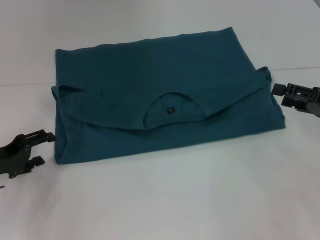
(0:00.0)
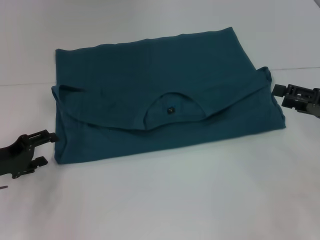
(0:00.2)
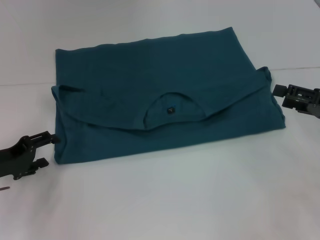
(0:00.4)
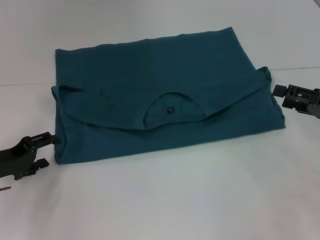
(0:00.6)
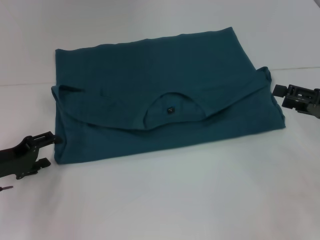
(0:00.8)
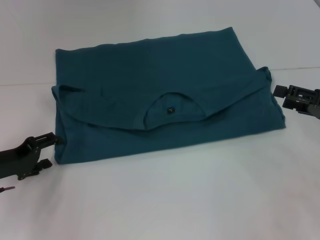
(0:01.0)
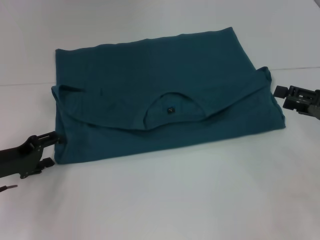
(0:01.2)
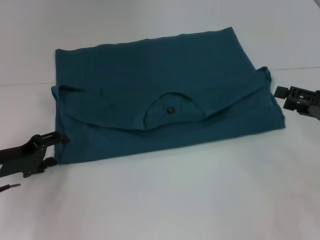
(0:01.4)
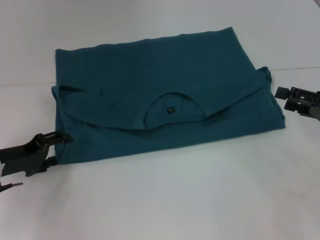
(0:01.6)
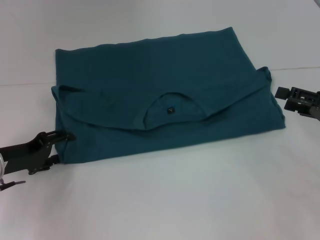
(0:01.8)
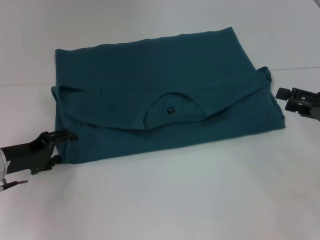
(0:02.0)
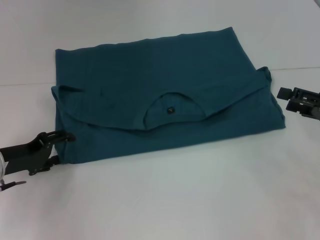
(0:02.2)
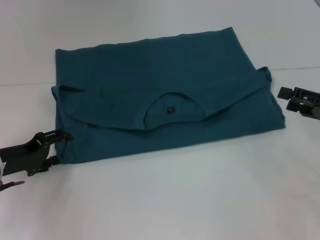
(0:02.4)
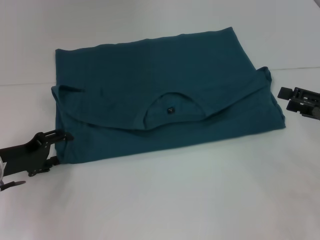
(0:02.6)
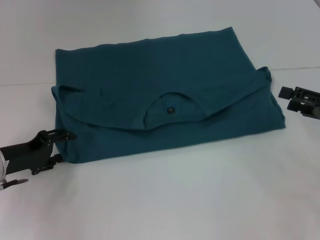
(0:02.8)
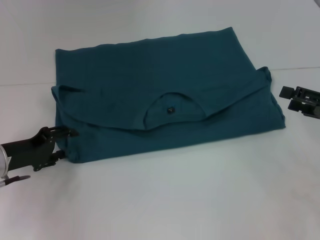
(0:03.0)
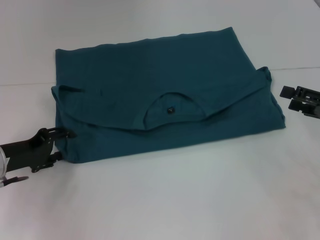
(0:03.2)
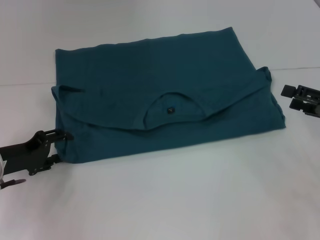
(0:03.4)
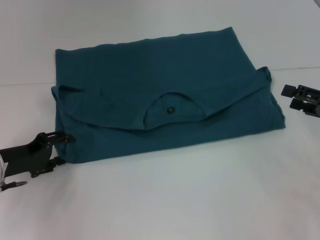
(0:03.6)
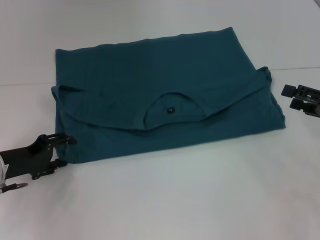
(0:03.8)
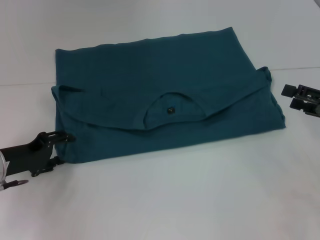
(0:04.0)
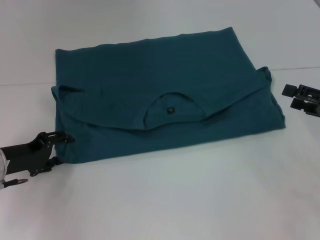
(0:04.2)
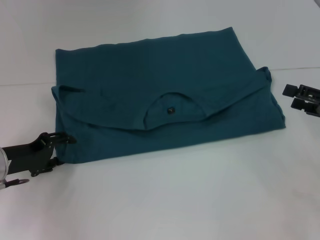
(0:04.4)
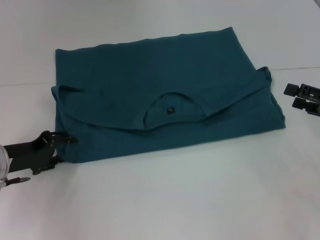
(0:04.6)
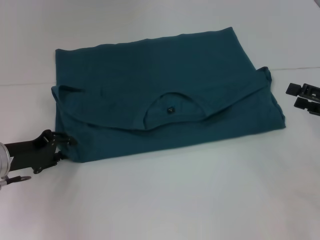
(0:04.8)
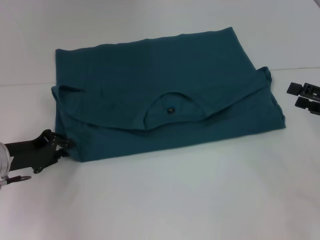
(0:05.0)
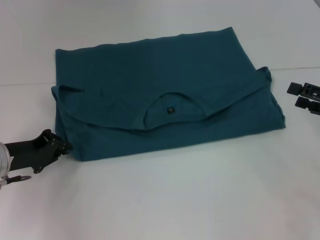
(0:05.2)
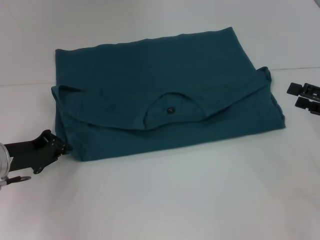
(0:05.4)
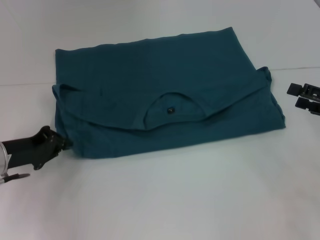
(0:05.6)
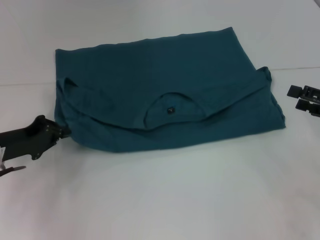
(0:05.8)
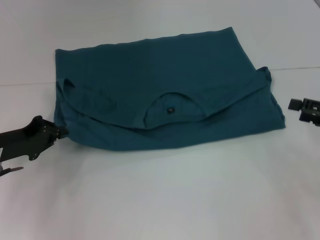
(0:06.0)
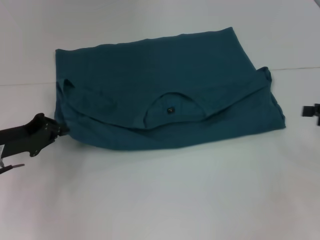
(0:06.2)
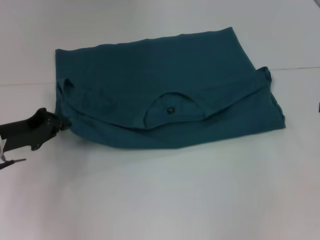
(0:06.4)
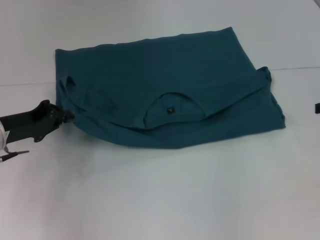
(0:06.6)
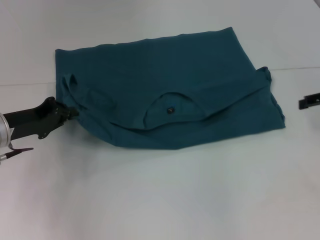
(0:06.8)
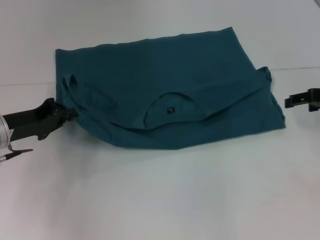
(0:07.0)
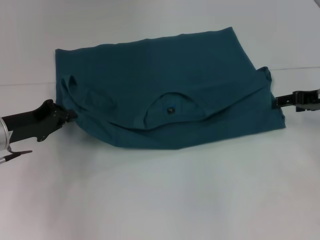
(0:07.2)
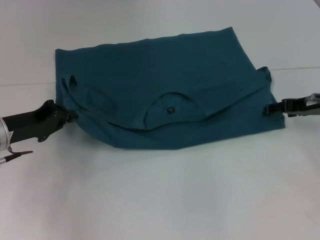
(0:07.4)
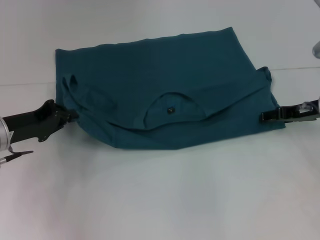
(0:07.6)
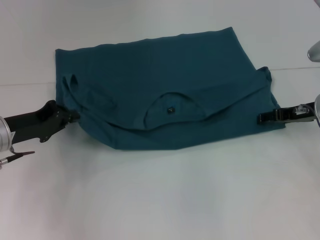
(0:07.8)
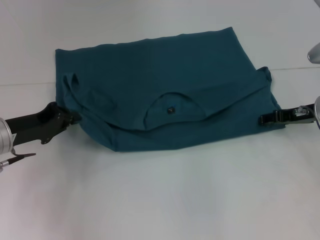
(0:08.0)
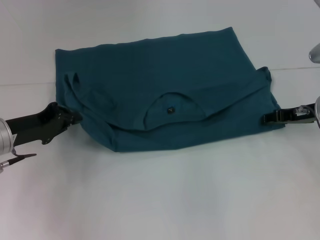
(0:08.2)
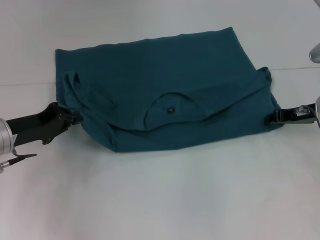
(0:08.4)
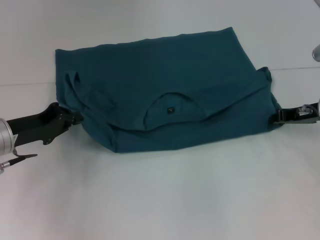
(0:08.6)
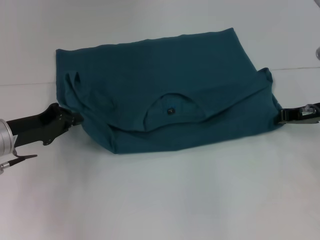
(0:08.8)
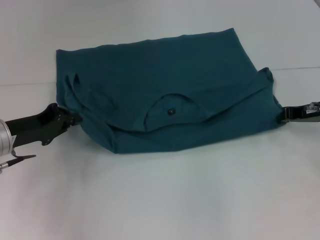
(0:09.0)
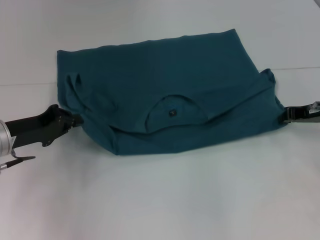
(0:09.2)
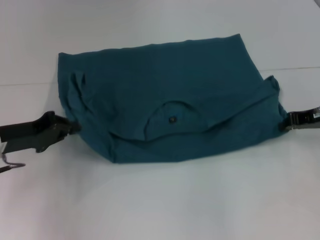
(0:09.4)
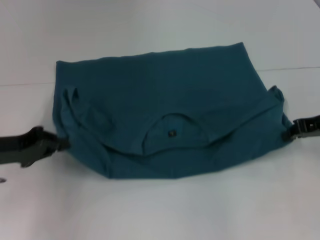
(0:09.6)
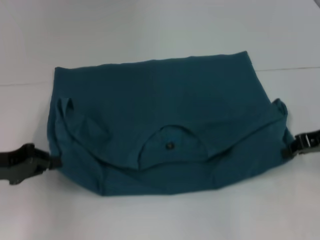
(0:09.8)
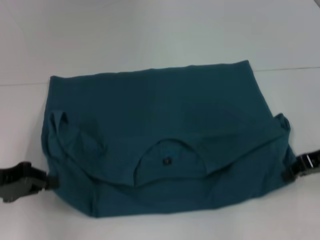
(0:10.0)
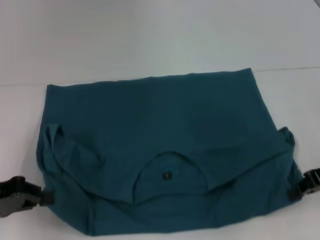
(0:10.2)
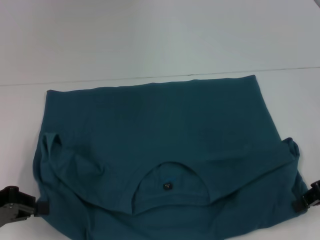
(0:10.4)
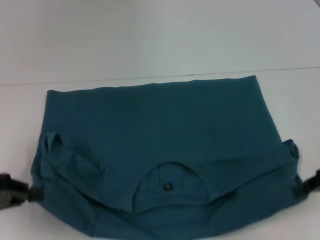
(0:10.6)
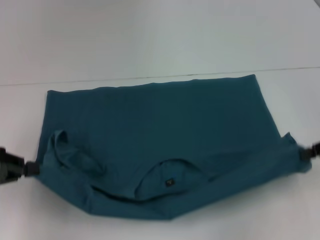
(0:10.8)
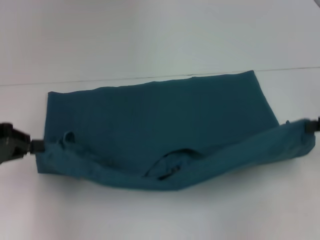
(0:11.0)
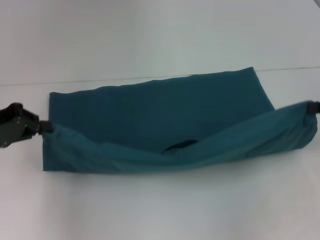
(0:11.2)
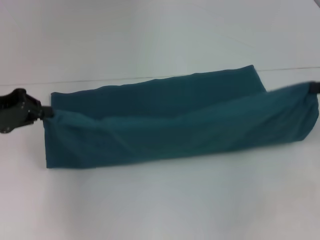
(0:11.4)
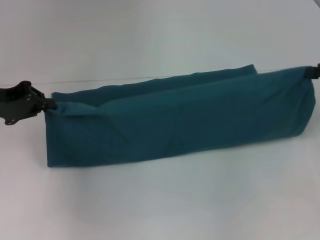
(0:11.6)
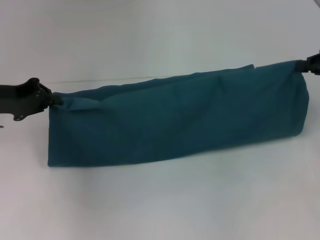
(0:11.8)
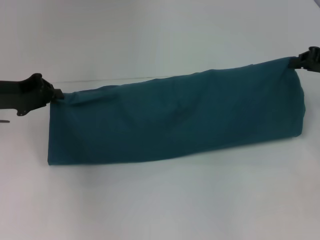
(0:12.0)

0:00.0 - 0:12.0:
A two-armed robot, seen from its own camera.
Step, 0:00.0 - 0:10.2: Pull the clothes with your left hand.
Step, 0:00.0 - 0:10.2: Pull the clothes with your right hand.
0:00.0 - 0:01.6: The grippers stay close to where they were, moving slightly.
0:01.6 - 0:03.0: Both grippers stay about where they are.
0:03.0 - 0:04.4: The two grippers keep their place.
0:04.4 - 0:06.0: The left gripper closes.
0:06.0 - 0:07.6: The right gripper moves forward and to the left, about 10 cm.
0:07.6 - 0:09.0: The right gripper closes its fingers.
0:09.0 - 0:10.4: The left gripper shifts some 10 cm backward and to the left. Meanwhile the right gripper goes some 10 cm backward.
0:10.4 - 0:12.0: Both grippers travel together forward, about 10 cm.

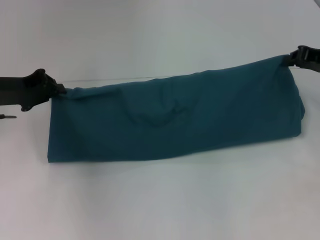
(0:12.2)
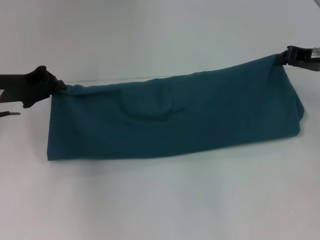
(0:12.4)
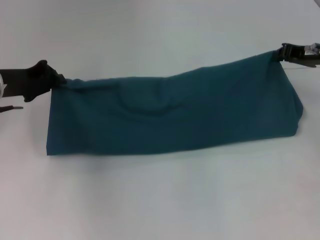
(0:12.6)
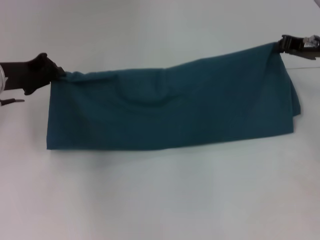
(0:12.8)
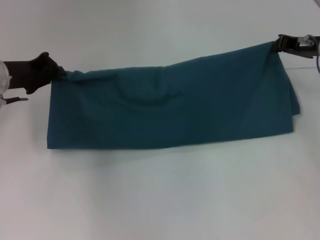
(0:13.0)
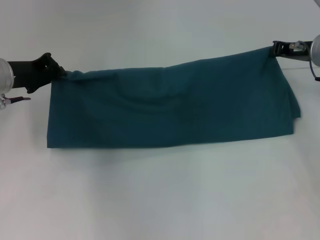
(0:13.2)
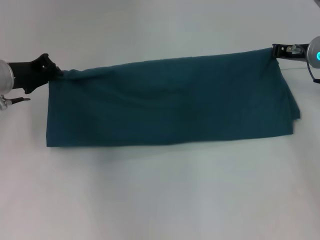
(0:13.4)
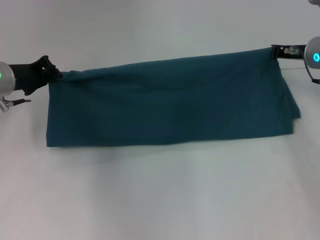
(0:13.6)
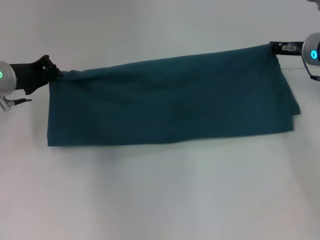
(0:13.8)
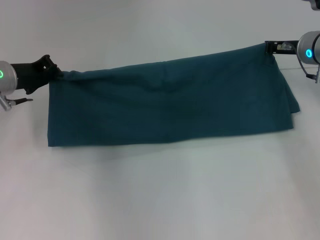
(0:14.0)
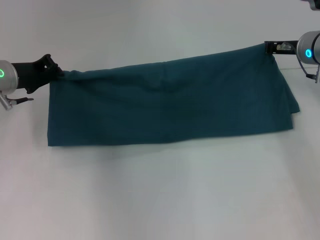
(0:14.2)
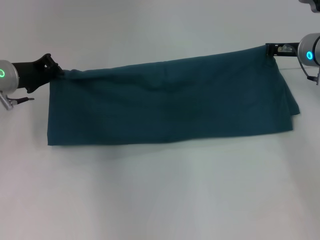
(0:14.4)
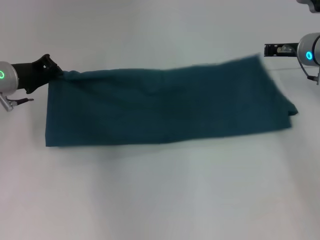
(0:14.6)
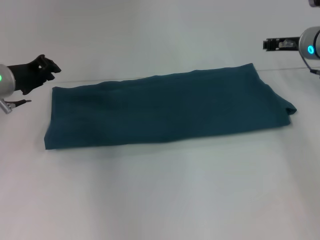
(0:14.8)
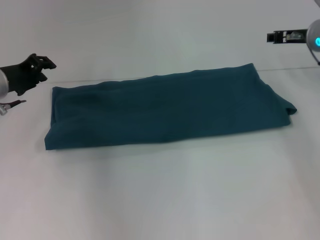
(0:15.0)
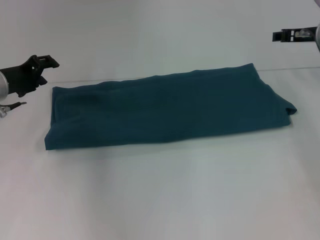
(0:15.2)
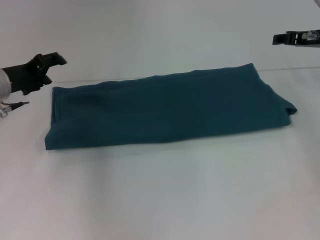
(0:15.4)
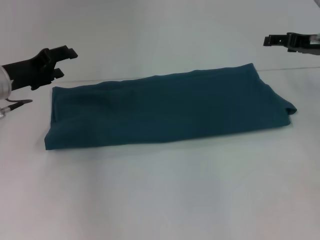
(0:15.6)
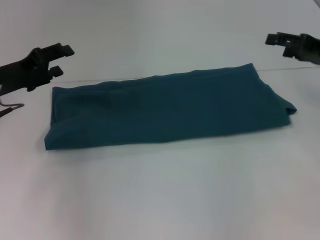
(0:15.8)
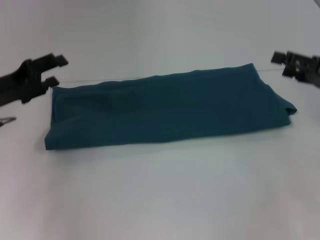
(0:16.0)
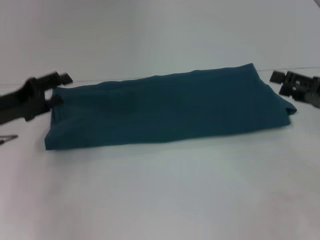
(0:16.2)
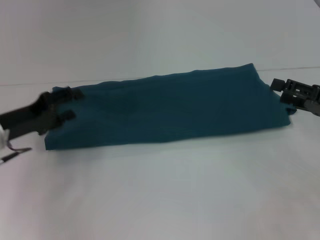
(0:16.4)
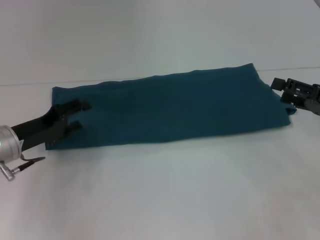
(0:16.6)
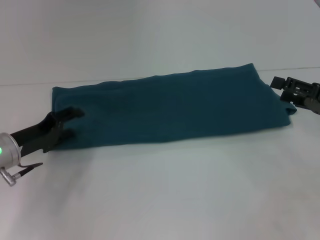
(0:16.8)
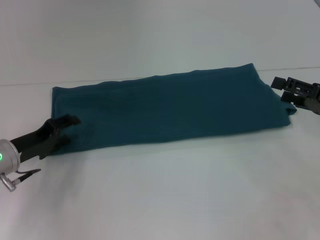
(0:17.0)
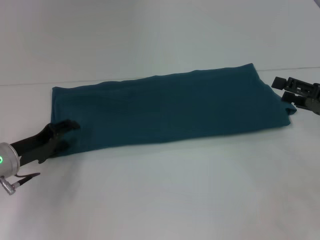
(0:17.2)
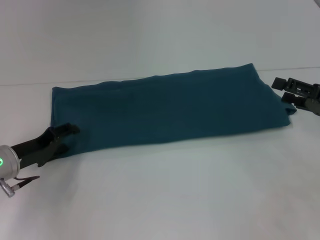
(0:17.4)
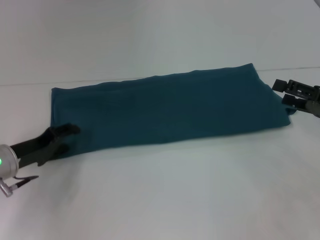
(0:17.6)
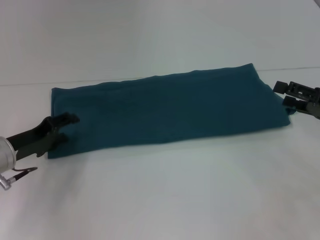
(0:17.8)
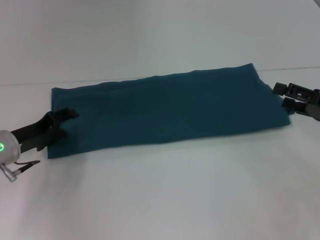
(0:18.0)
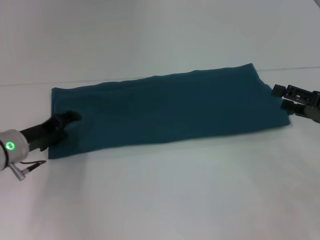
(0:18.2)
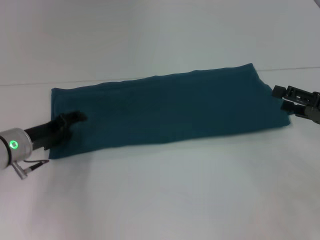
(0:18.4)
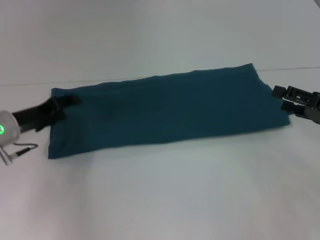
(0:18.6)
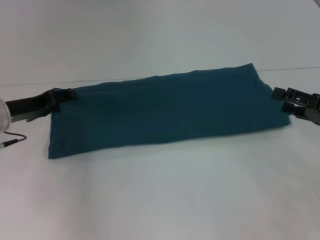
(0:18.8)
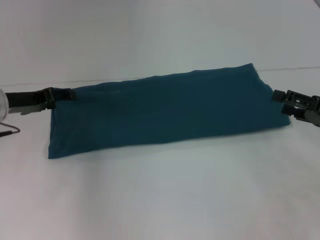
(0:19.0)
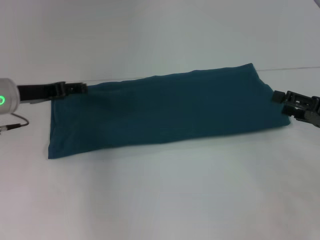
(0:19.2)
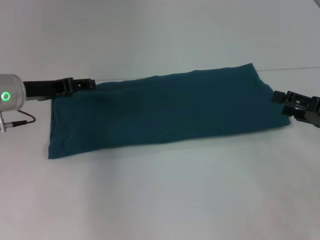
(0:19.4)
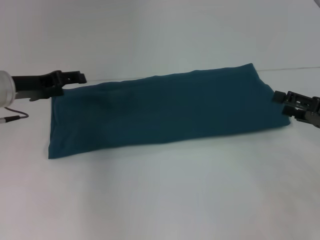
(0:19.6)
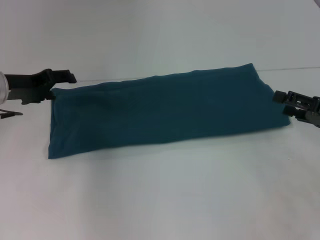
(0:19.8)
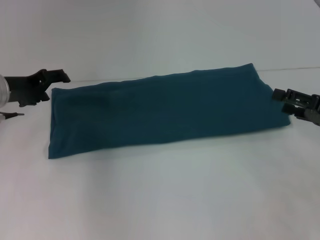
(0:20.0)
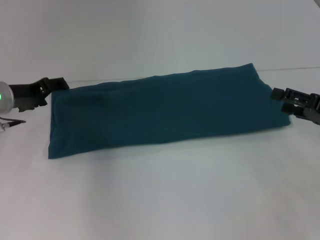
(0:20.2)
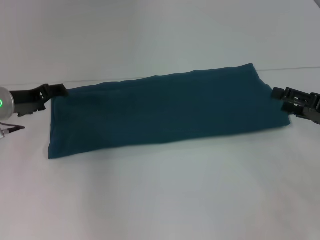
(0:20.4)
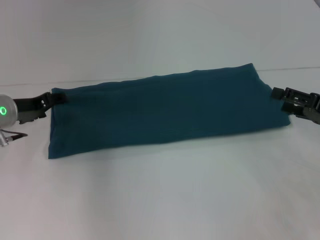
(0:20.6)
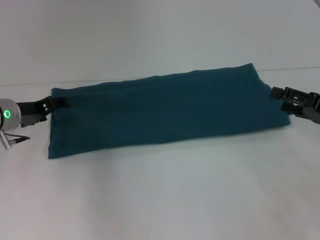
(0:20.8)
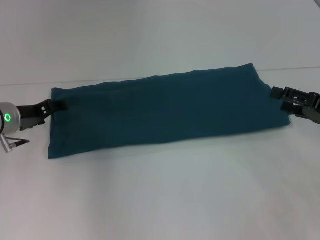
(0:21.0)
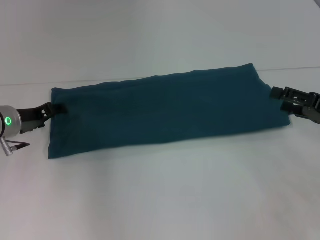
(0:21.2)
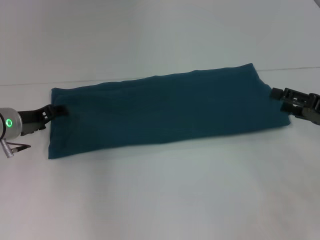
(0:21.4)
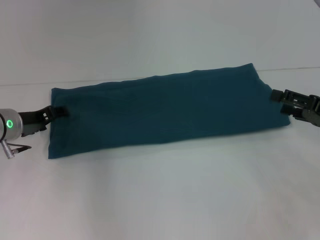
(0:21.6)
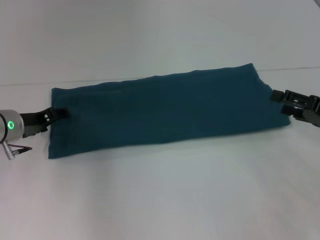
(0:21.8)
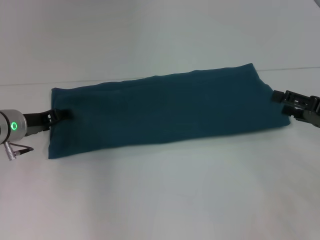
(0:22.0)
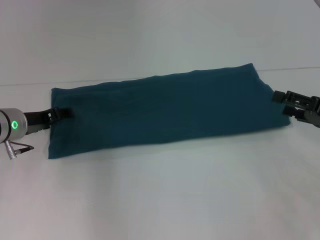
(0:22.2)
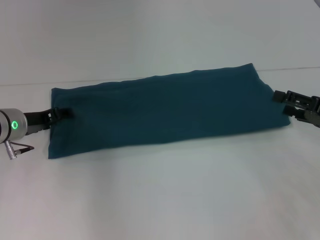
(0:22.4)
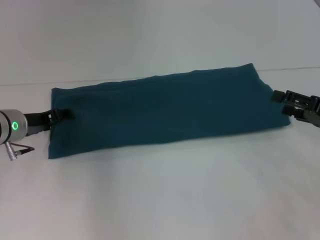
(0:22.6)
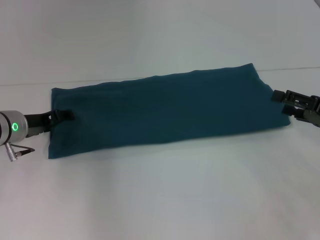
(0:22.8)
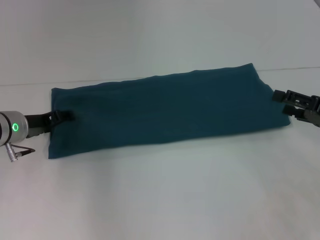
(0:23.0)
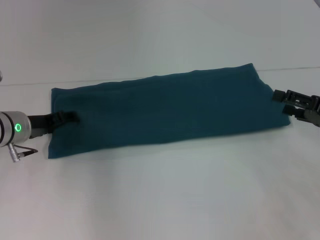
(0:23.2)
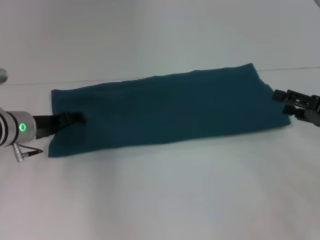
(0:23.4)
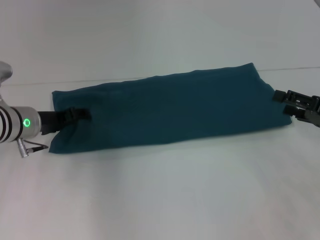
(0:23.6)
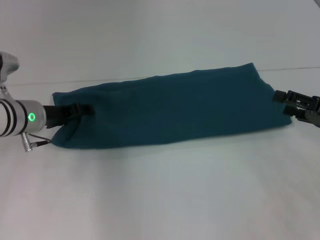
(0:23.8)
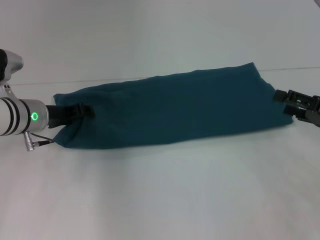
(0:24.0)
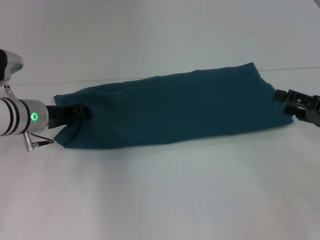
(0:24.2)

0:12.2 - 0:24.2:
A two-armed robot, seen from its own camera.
Step, 0:12.2 - 0:15.2: Fold the clothes to the right.
0:12.2 - 0:13.8: The right gripper shifts approximately 10 cm to the left and forward.
0:13.8 - 0:15.2: The left gripper opens. The right gripper opens its fingers.
0:15.2 - 0:16.6: The left gripper is displaced backward and downward by roughly 10 cm; the right gripper travels backward by some 15 cm, and opens.
0:16.6 - 0:18.2: The grippers make only small movements.
0:18.2 - 0:19.8: The left gripper travels upward and forward by about 10 cm.
0:19.8 - 0:21.2: The left gripper moves downward, approximately 5 cm.
0:21.2 - 0:24.2: There are only small adjustments of the grippers.
